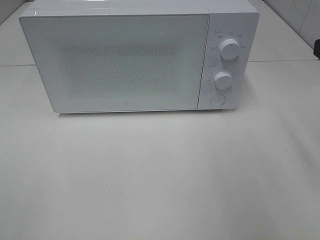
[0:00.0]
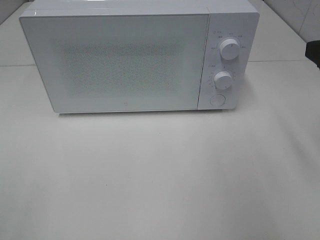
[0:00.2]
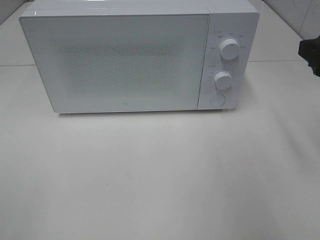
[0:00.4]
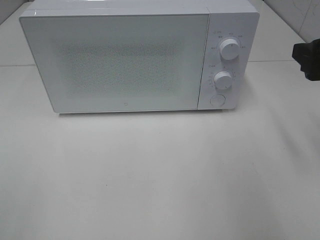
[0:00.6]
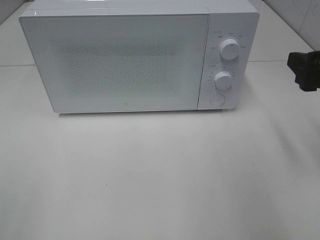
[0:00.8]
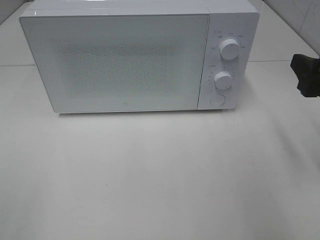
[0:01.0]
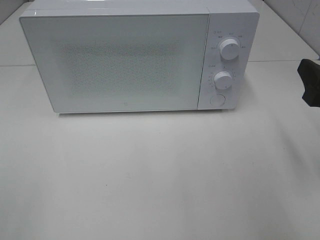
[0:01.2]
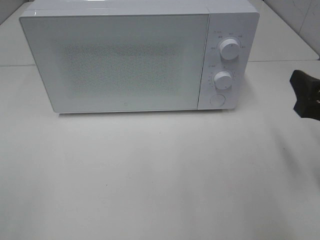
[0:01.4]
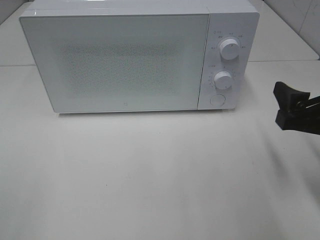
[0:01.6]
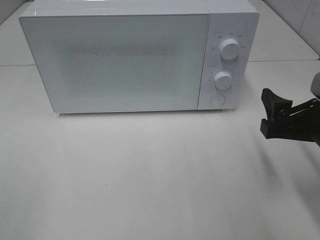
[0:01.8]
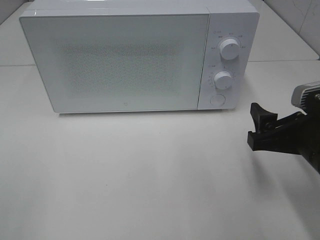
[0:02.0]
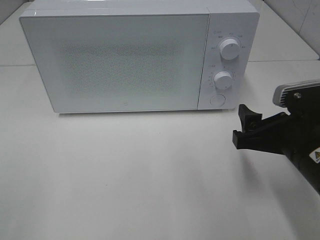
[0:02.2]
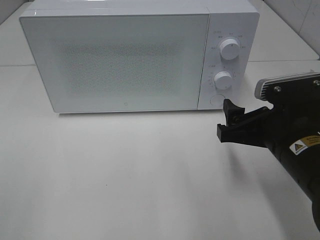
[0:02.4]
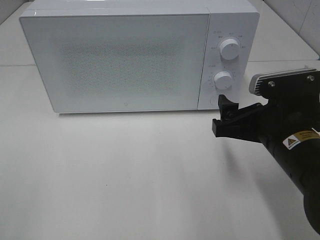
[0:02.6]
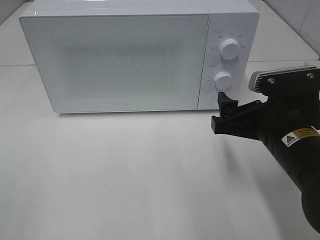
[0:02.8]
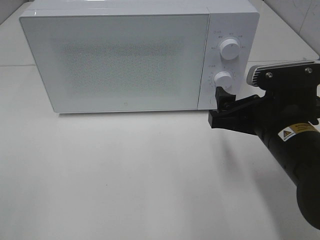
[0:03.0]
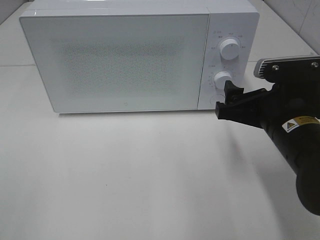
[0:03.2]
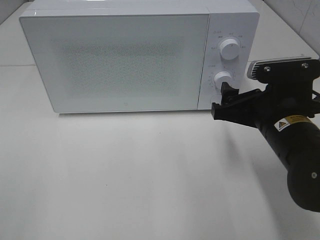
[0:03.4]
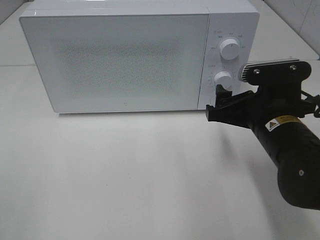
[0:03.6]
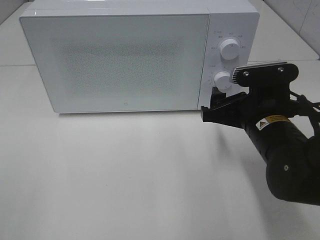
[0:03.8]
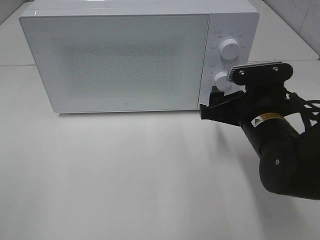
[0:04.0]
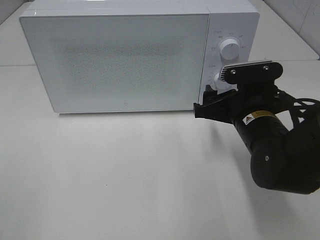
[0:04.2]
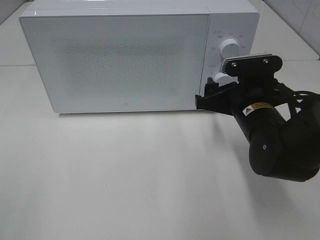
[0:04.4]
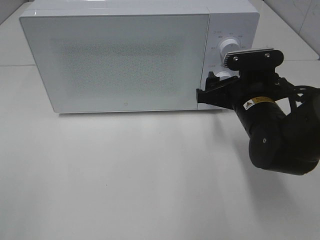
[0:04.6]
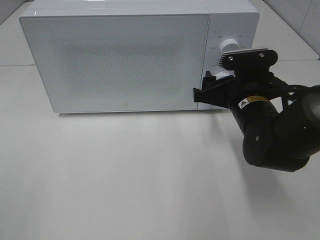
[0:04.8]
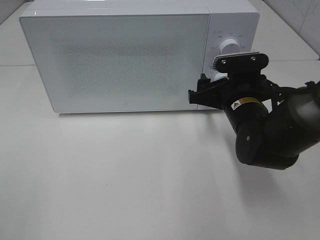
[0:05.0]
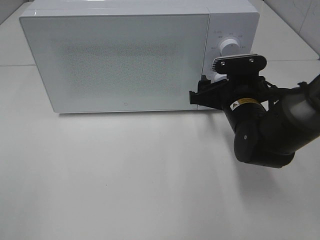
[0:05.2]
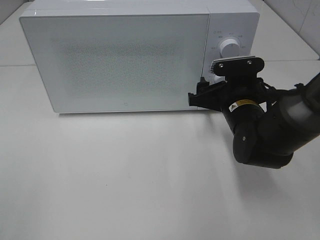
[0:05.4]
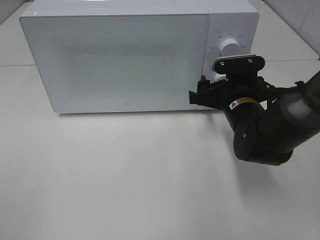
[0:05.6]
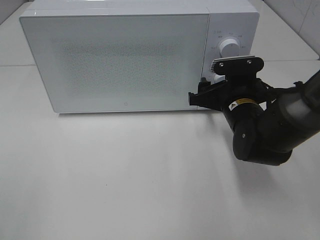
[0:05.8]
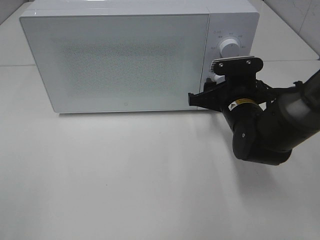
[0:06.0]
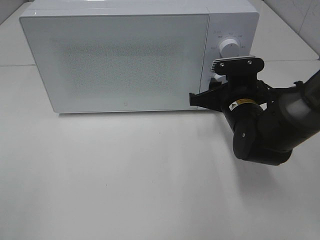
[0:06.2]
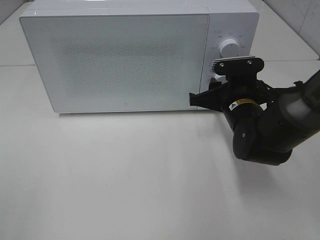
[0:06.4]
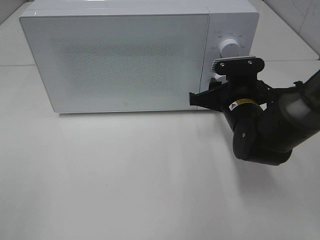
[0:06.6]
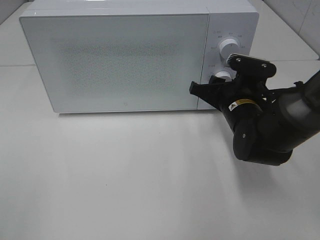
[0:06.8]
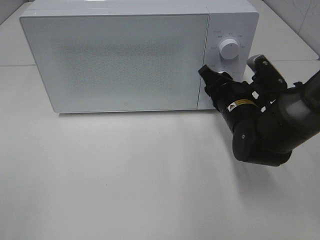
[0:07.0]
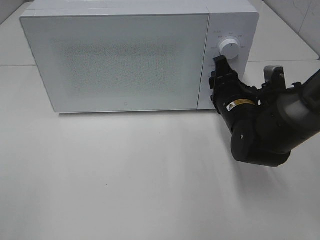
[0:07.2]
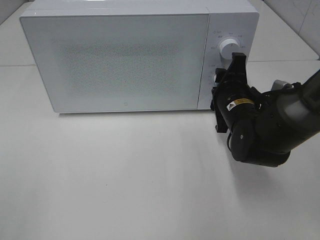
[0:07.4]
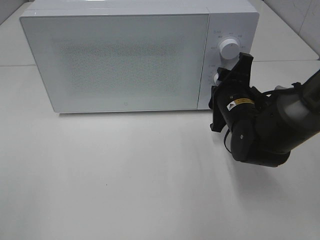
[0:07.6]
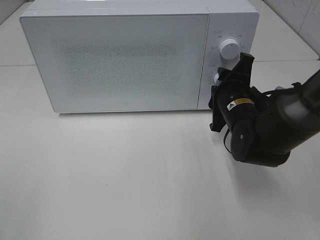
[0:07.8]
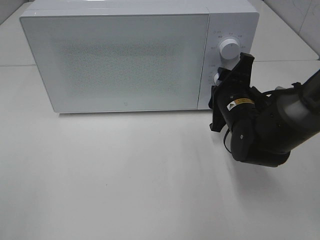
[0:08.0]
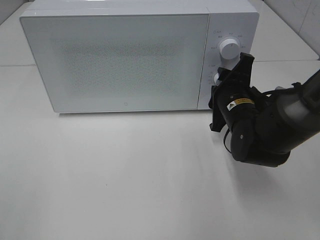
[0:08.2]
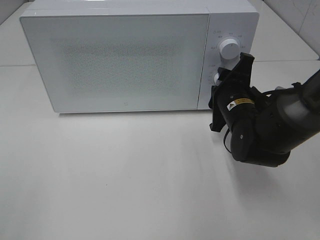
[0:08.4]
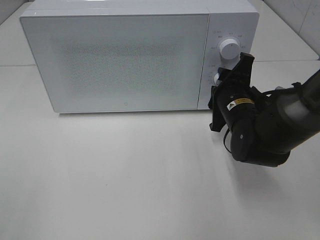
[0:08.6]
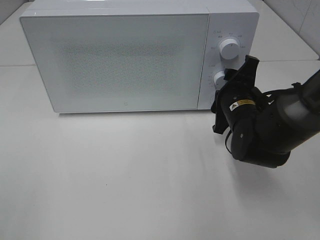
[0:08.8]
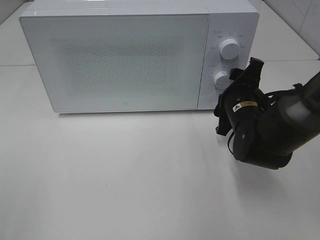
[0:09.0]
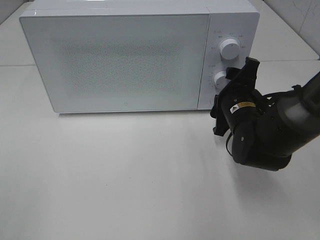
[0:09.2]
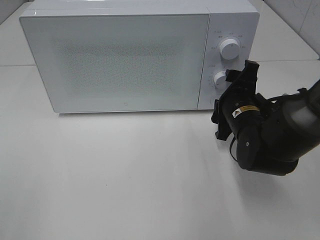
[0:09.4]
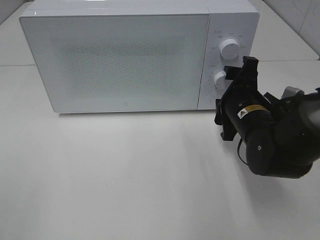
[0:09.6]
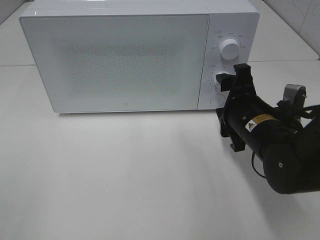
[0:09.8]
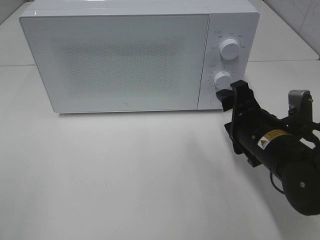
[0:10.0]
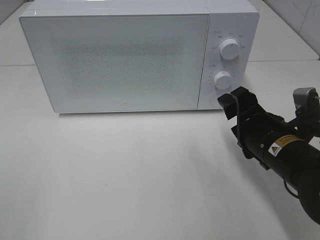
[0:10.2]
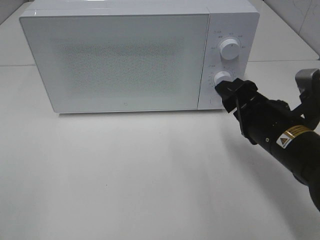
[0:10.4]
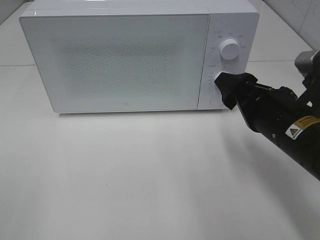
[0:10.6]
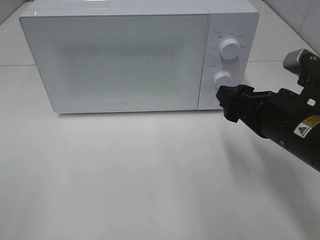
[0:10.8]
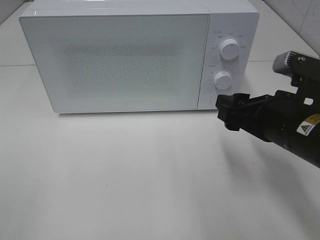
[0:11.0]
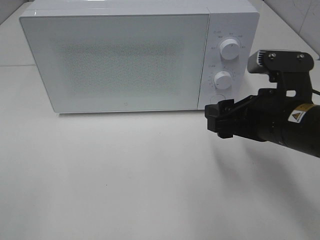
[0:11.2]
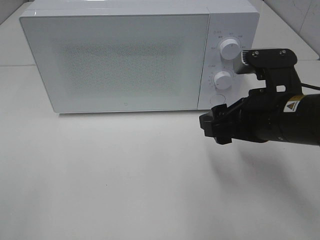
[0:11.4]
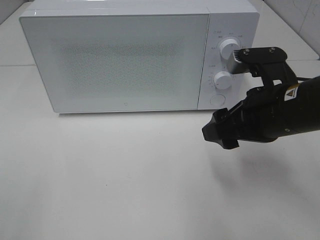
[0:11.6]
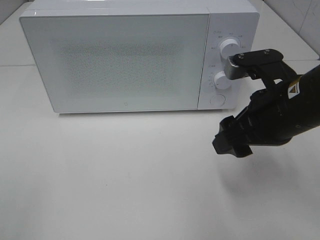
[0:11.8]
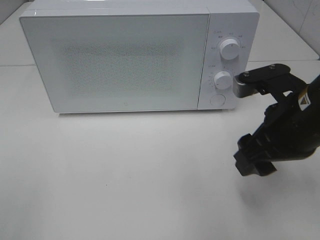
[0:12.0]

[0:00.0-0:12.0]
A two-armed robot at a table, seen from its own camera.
Task of the whole recording: Heat the burger.
Step, 0:00.0 to 0:08.8: Right hand: twist timer button.
0:00.0 to 0:01.6: The right gripper travels downward by roughly 10 cm.
0:01.6 to 0:03.0: The right gripper shifts some 10 cm to the left.
0:03.0 to 0:04.4: The right gripper is displaced forward by approximately 10 cm.
0:04.4 to 0:06.0: The right gripper shifts by some 5 cm.
0:07.6 to 0:09.0: There are only small adjustments of the grippers.
0:09.0 to 0:10.4: The right gripper moves backward, about 10 cm.
0:10.4 to 0:12.0: The right gripper goes roughly 5 cm upward.

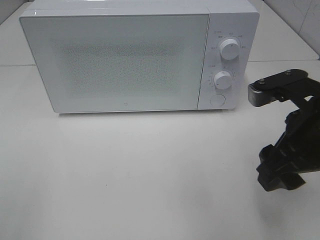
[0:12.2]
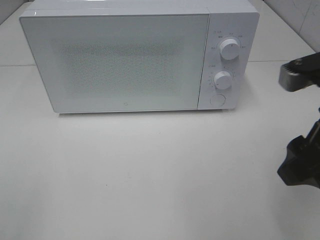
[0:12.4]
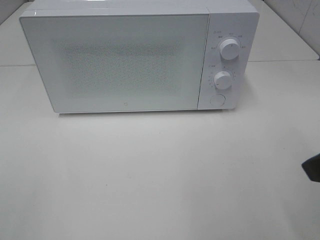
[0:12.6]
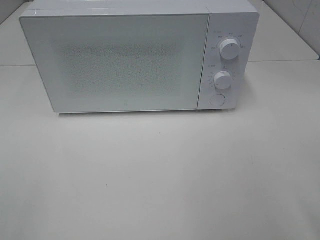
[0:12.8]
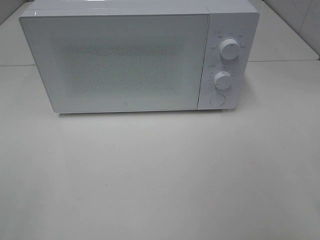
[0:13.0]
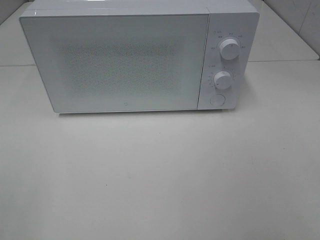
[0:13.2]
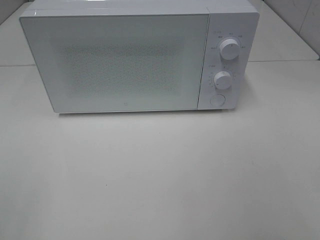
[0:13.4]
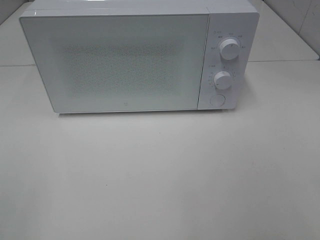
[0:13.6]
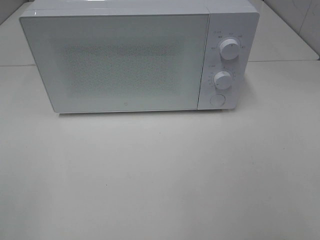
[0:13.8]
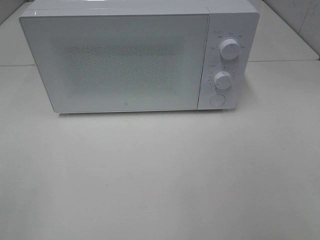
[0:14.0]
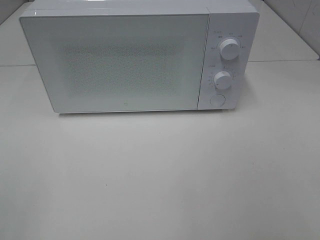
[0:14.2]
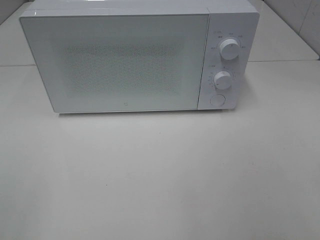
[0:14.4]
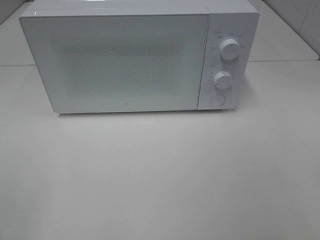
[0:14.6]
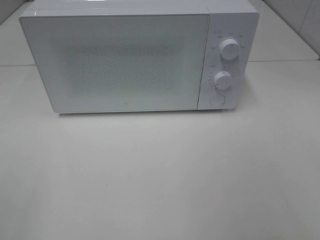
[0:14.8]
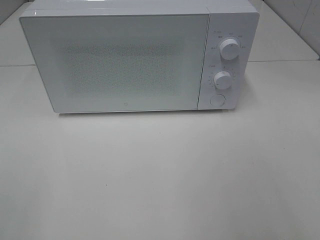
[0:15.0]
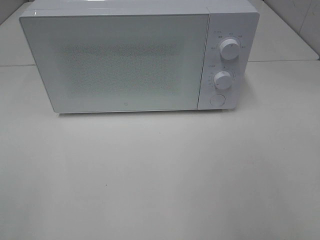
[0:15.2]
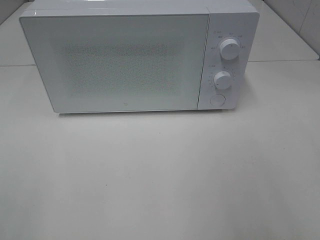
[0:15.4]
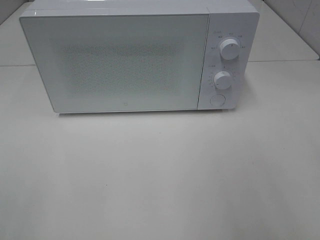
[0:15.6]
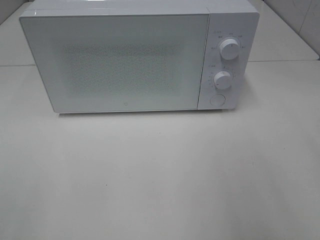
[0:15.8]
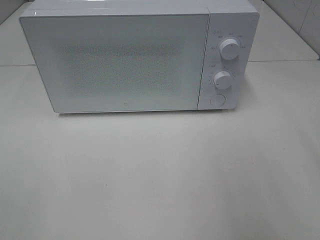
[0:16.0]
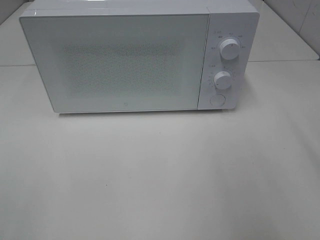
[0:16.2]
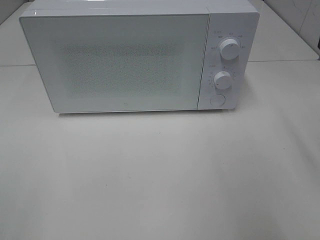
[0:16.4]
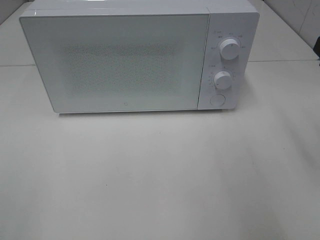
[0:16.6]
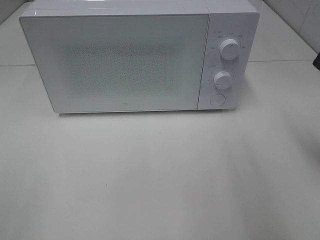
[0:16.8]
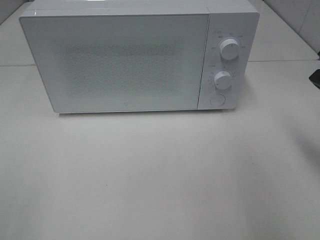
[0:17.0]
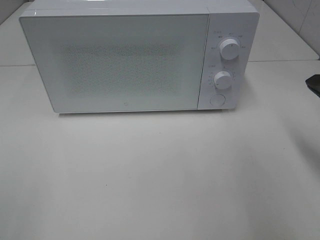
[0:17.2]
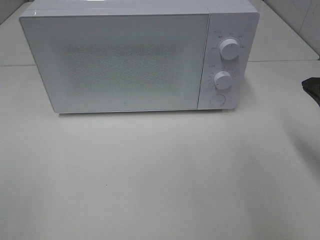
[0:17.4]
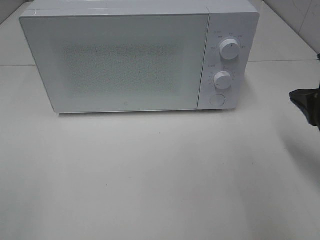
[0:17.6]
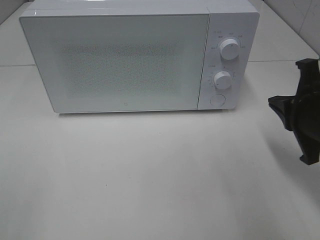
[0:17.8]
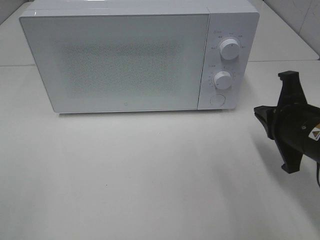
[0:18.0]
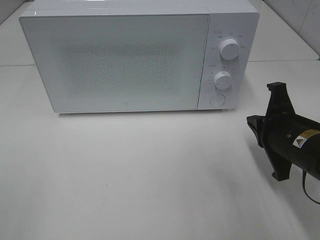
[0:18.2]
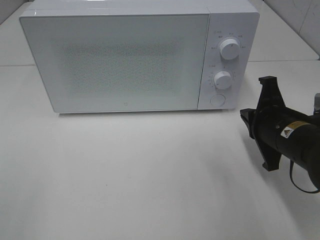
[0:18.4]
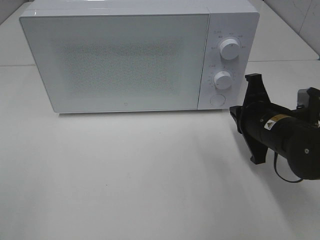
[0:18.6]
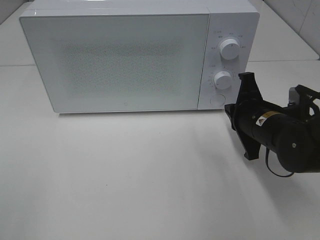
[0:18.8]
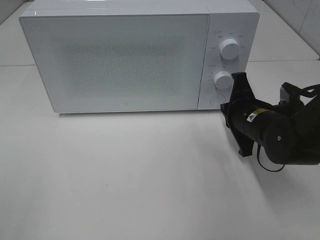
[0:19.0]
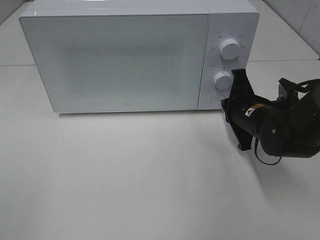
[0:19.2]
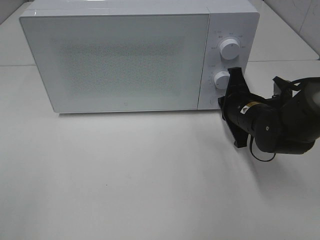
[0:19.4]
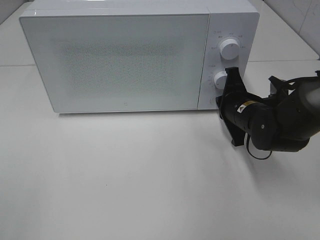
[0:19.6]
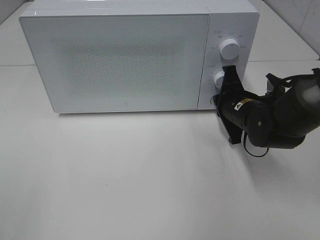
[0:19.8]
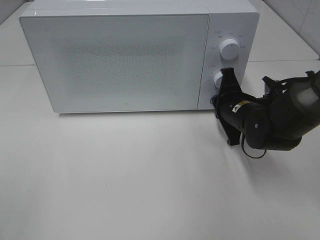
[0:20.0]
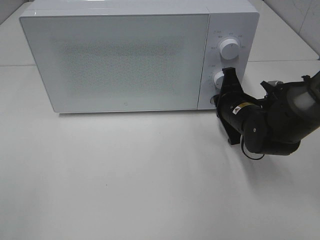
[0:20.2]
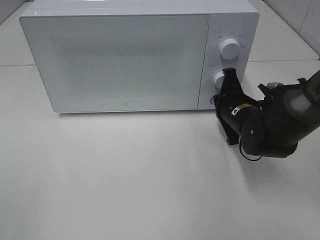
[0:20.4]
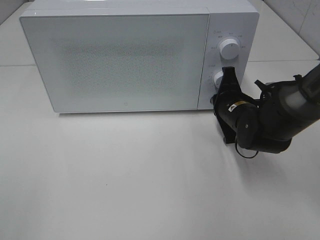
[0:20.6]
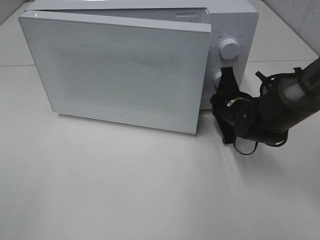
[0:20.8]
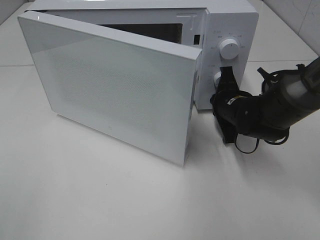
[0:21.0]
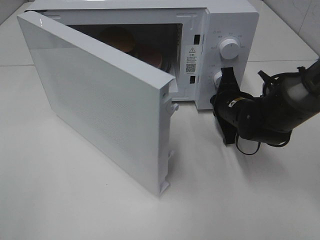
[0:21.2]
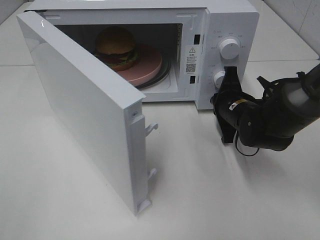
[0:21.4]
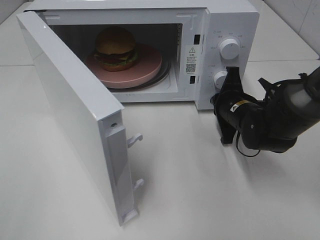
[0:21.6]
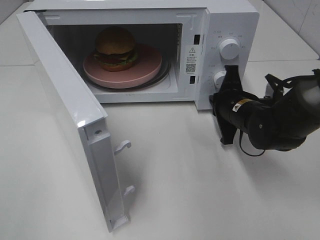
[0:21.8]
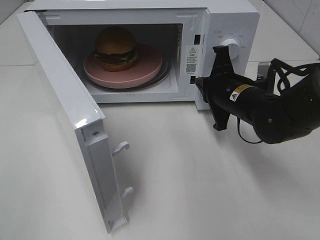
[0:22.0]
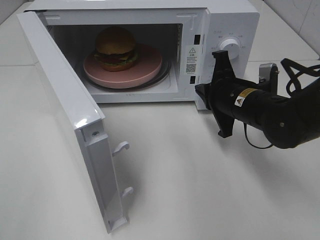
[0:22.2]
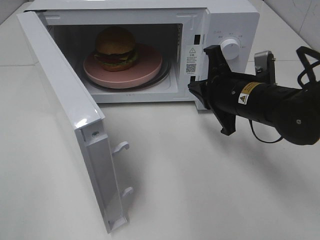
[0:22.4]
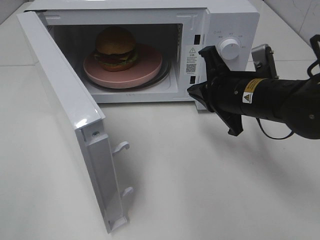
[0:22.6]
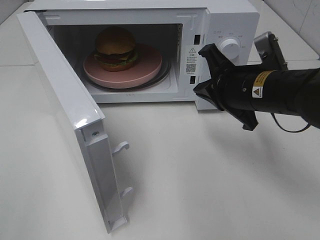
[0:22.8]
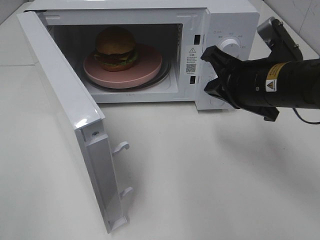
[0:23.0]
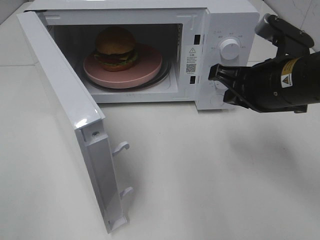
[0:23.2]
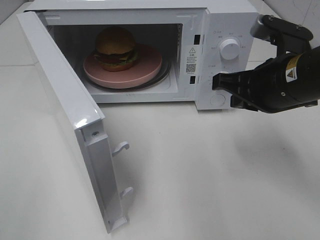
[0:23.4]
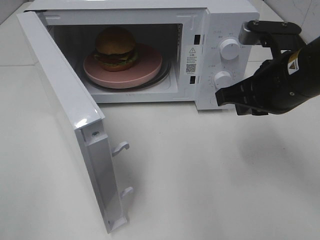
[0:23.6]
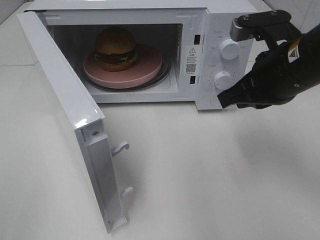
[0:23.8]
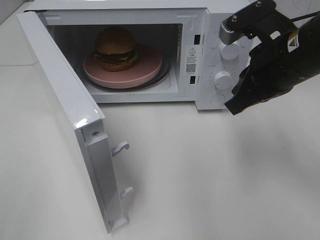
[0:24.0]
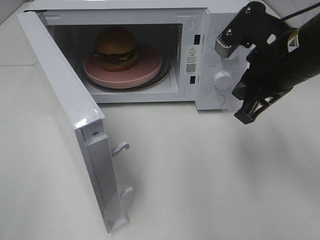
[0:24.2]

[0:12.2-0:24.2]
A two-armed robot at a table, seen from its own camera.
Task of the whole recording: Heat the burger.
Step, 0:12.2 to 0:21.8: Right hand: press the switch.
0:12.2 to 0:13.8: The right gripper travels backward and to the right by some 20 cm.
0:16.6 to 0:18.2: The right gripper is displaced downward and to the left by some 15 cm, and closes.
0:18.2 to 0:19.8: The right gripper heads forward, covering approximately 10 cm.
0:21.2 to 0:22.6: The right gripper goes about 10 cm upward and backward.
0:22.6 to 0:24.2: The right gripper heads upward, covering approximately 10 cm.
